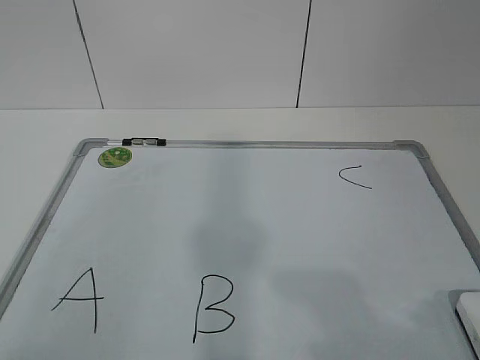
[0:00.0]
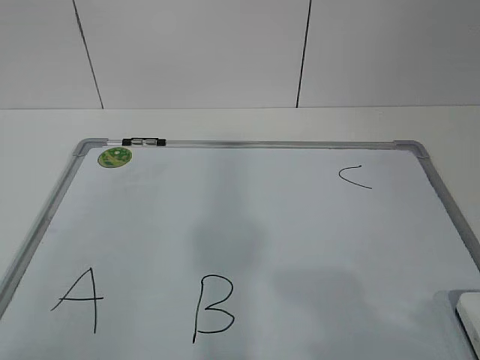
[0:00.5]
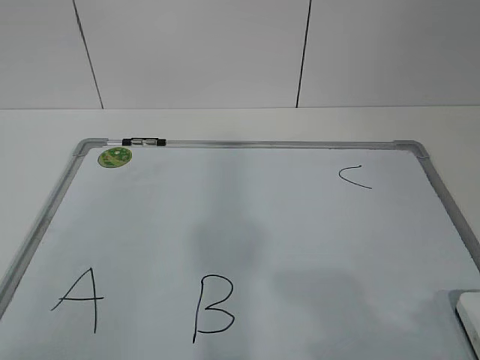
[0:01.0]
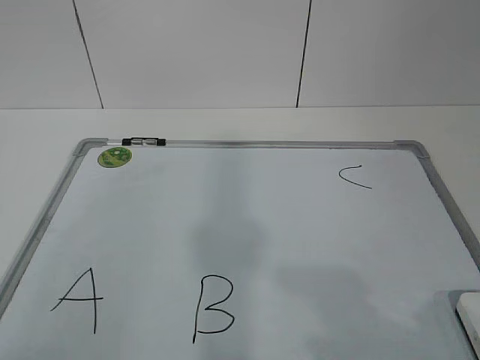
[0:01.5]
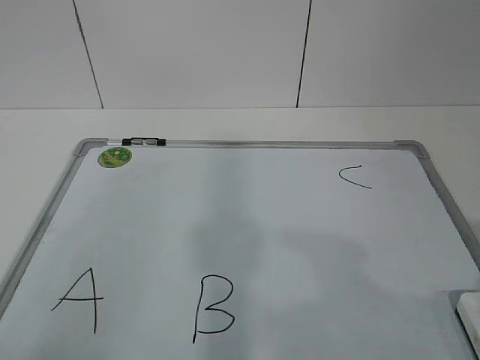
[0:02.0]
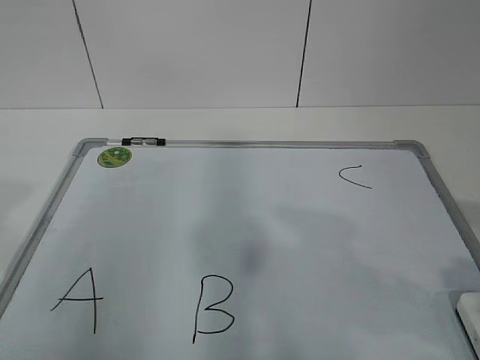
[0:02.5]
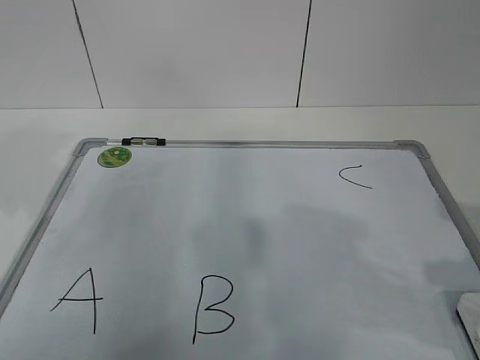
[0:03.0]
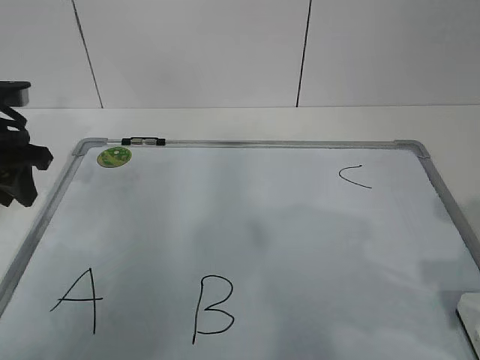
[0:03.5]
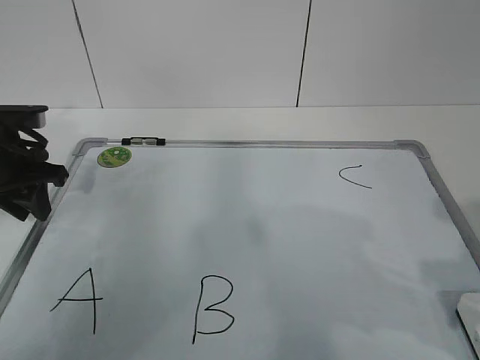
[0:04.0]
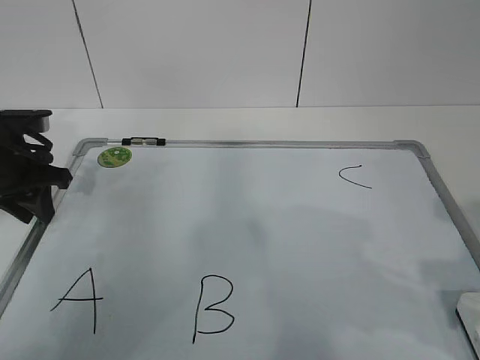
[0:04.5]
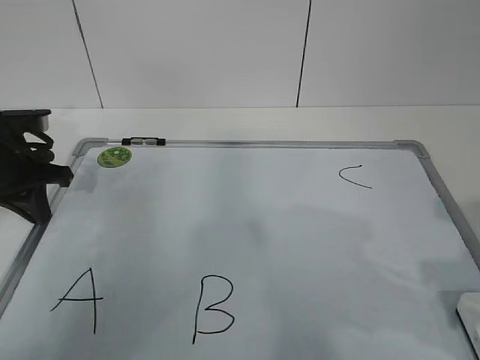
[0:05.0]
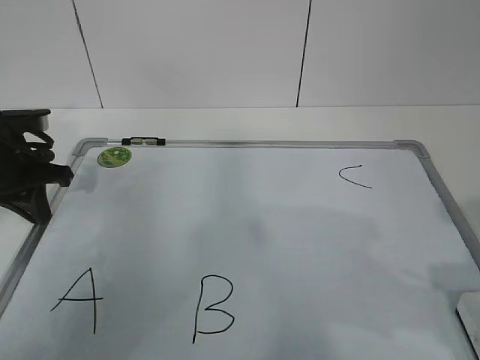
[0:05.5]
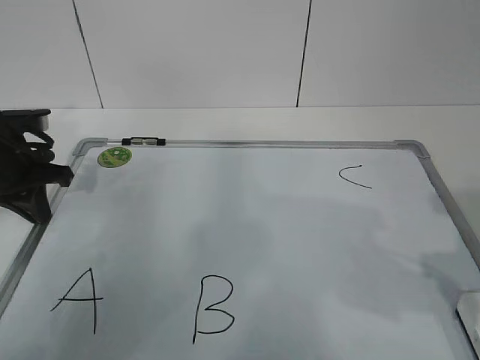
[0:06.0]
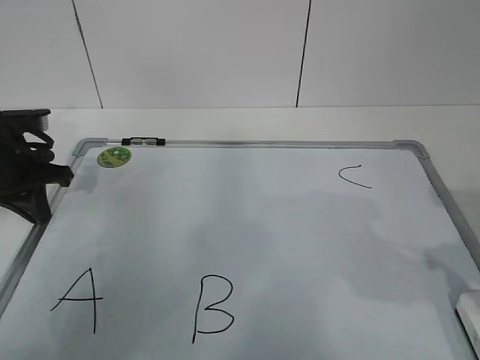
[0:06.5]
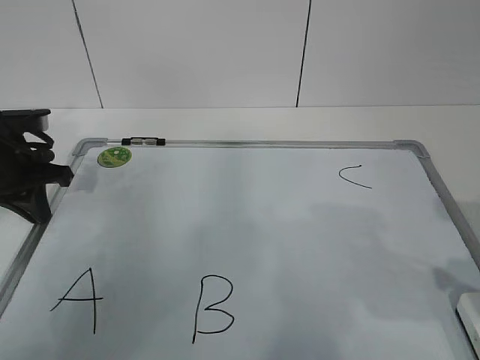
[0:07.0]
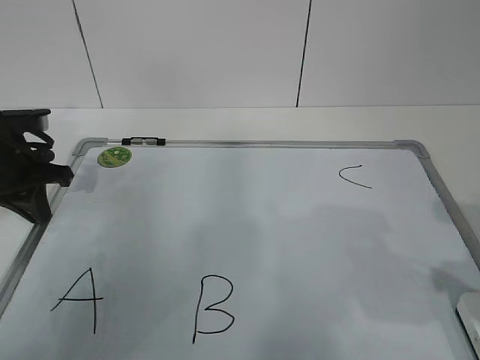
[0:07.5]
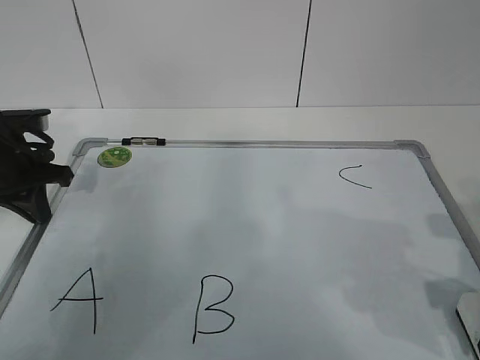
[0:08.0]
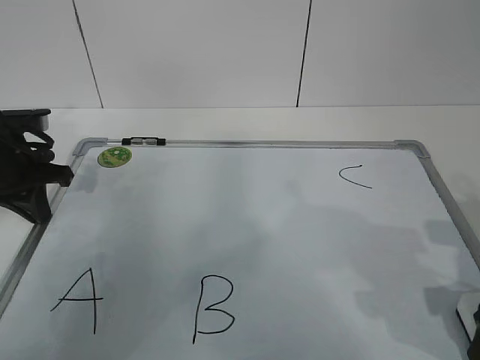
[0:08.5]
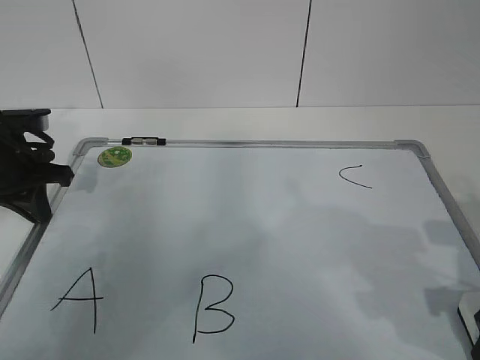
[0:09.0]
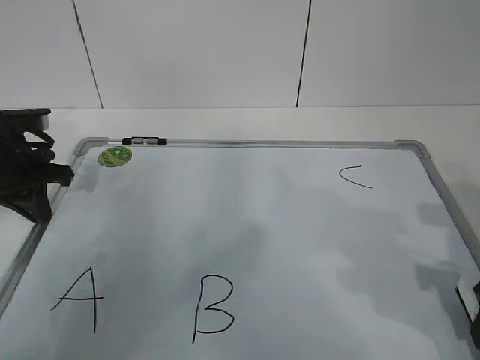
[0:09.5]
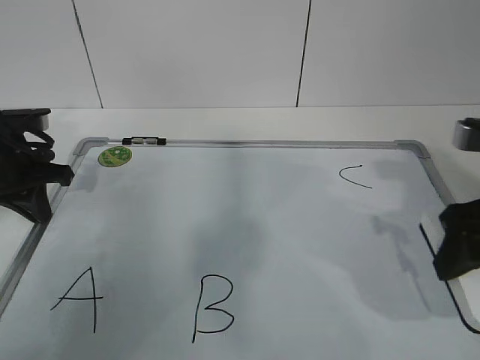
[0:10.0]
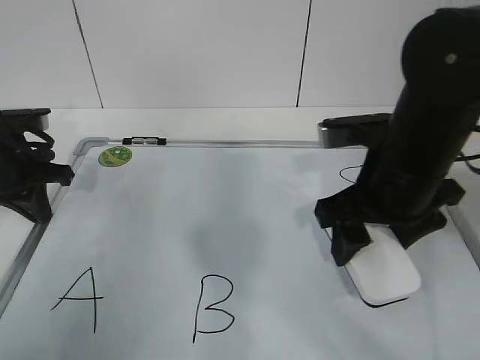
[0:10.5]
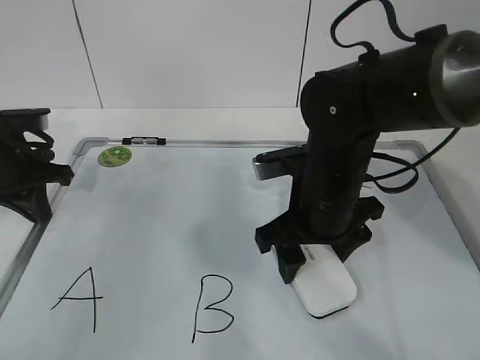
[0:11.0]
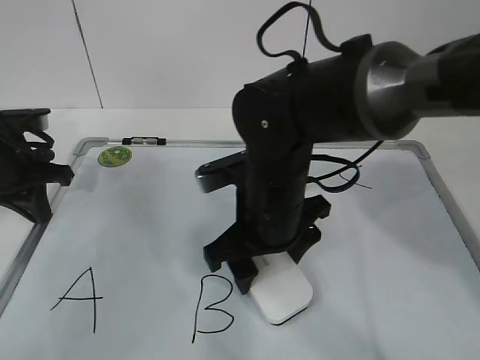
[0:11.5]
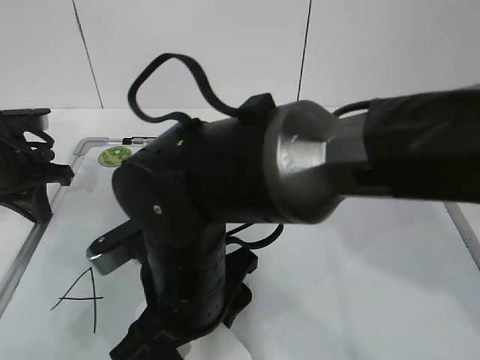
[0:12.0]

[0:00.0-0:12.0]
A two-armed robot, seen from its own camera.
Task of the whole recording: pick up the eraser on the blackboard and erase the letter "B".
Step, 0:00.0 to 0:04.0: Hold the drawing board steady with your left hand.
0:02.0 to 0:04.0: The left gripper moves forward, approximately 35 cm.
0:04.0 to 0:06.0: The left gripper closes.
0:08.0 to 0:10.0: The right gripper heads forward, covering about 5 cm, and closes.
0:10.0 to 0:12.0: The right gripper is displaced to the left by roughly 30 cm.

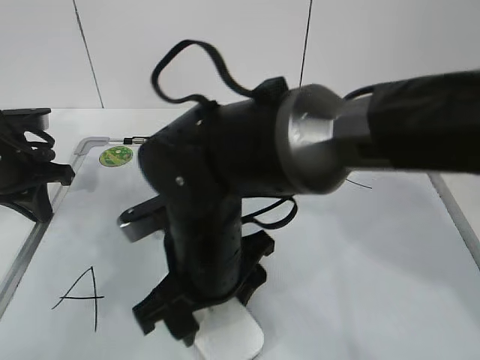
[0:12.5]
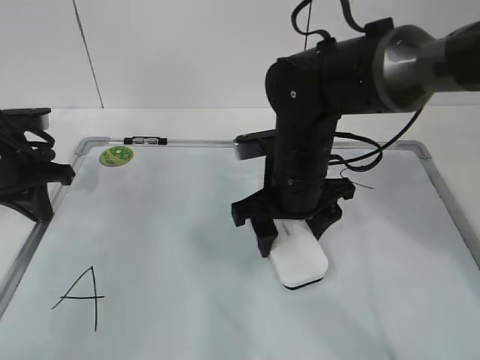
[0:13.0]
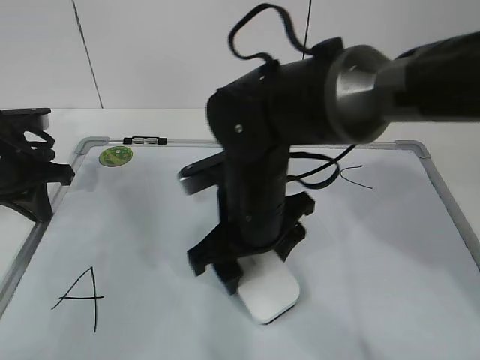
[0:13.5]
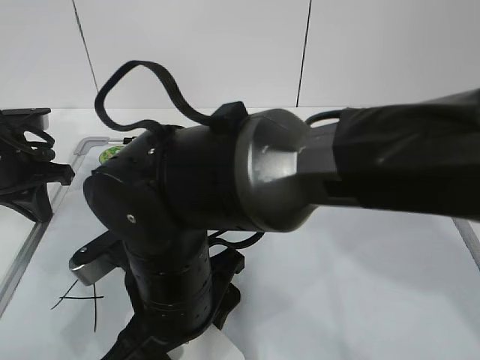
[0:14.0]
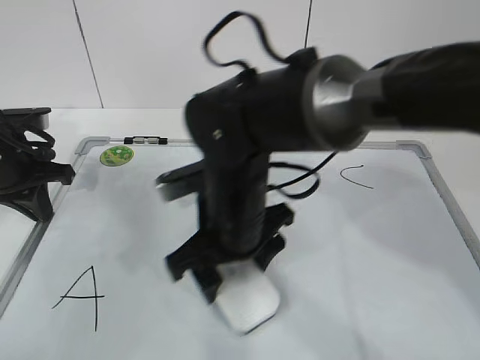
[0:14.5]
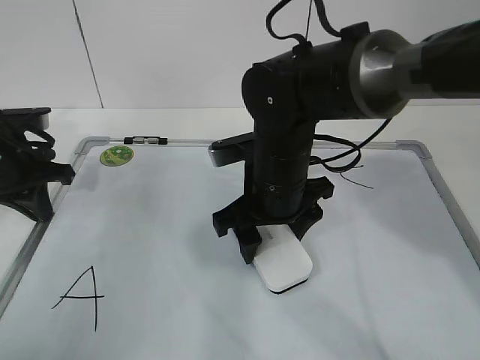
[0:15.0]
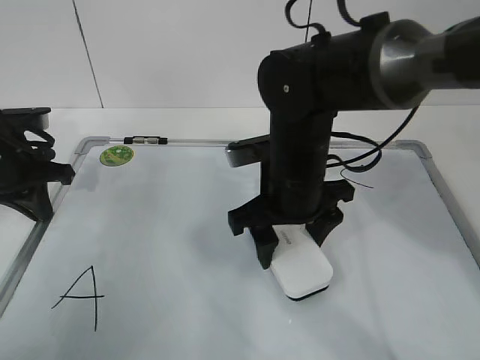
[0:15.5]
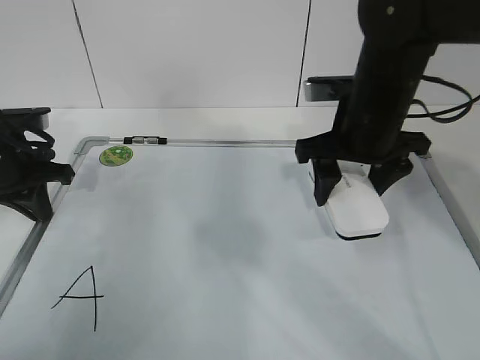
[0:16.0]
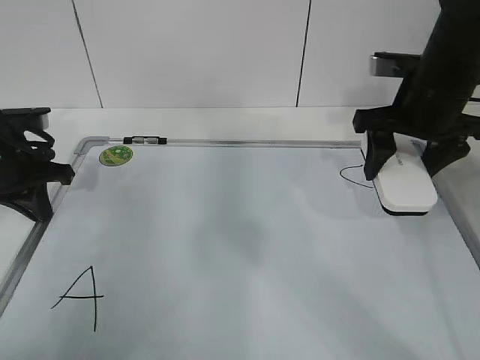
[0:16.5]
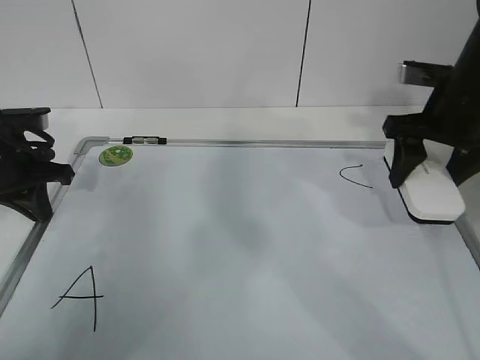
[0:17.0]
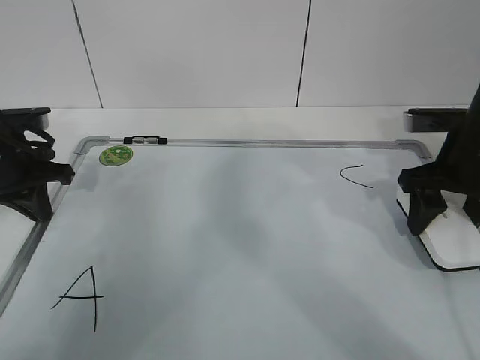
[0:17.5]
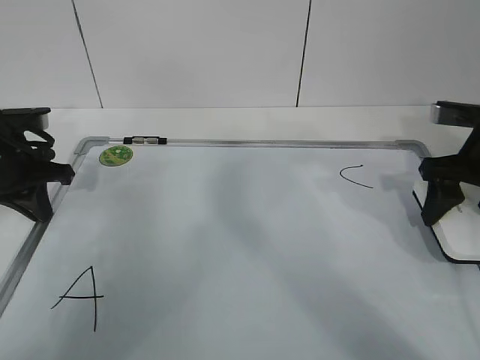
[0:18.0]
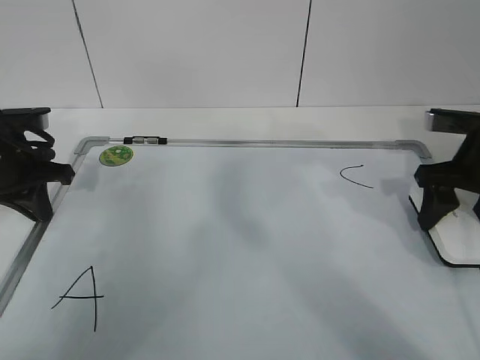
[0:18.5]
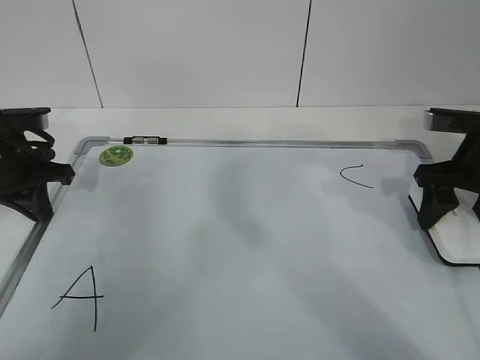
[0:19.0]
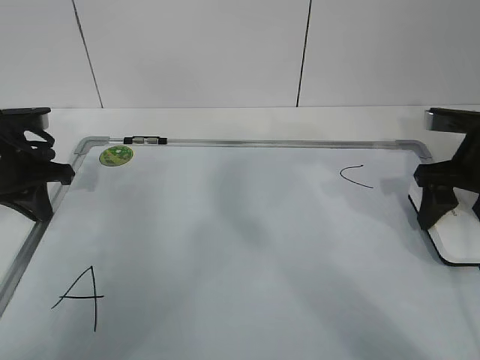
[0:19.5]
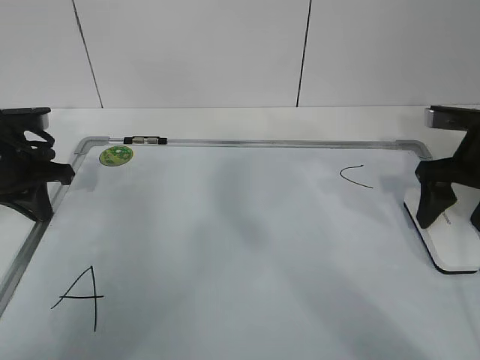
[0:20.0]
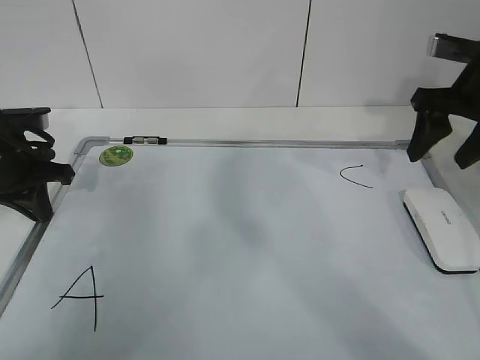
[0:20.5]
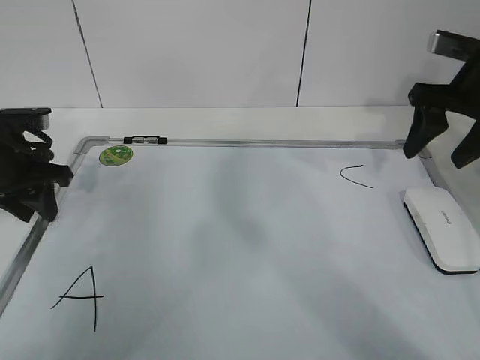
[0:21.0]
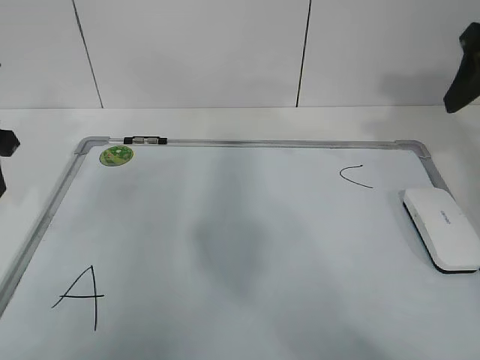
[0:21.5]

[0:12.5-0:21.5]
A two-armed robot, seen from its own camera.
Task of the whole recording: pick up the eraser on the blackboard and erase the letter "B".
Step, 0:13.0 to 0:16.0: Put down the eraser with your right hand.
0:12.5 to 0:14.5: The right gripper swings forward and backward, about 15 cm each way, with 2 reversals.
0:14.5 to 0:17.0: The right gripper shifts approximately 25 cm to the right.
0:17.0 to 0:19.5: The right gripper moves approximately 5 cm.
0:19.5 to 0:21.5: The right gripper moves upward, approximately 15 cm, and opens, then closes again, while the left gripper moves upward, some 10 cm, and opens up.

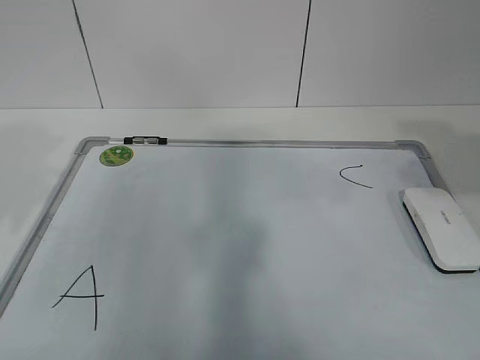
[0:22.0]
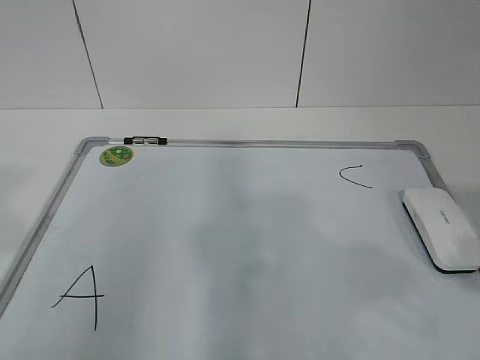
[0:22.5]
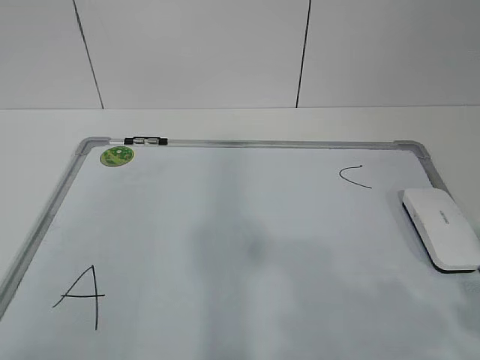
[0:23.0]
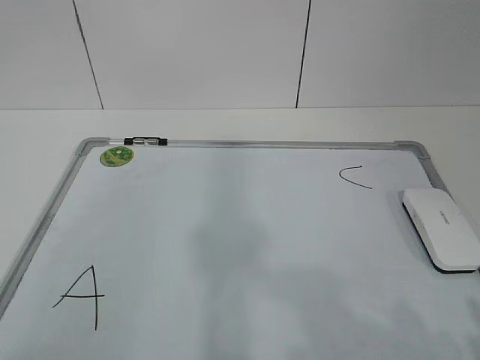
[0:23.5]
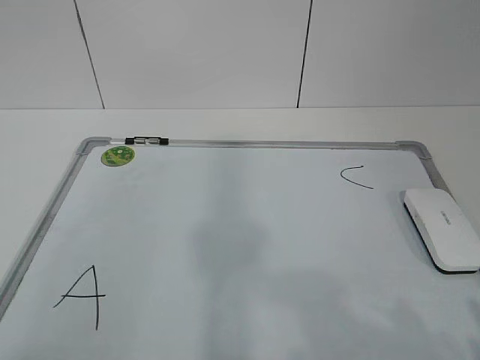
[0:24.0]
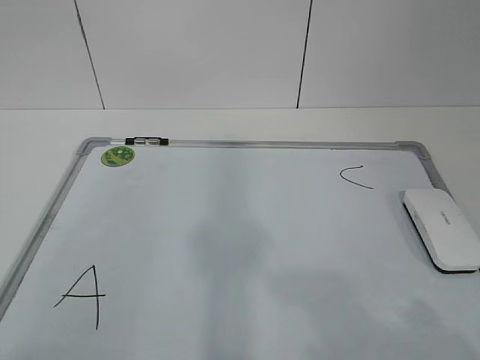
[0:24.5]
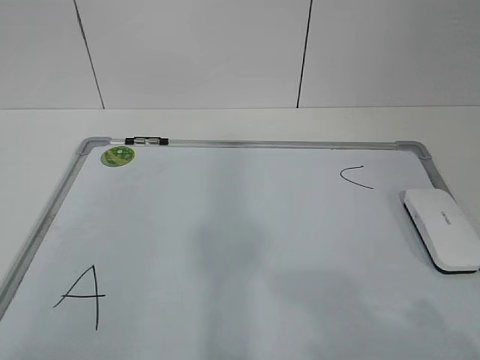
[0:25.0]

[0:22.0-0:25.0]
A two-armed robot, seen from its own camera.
Task of the whole recording: pick up the eraser on the blackboard and erase the letter "B".
0:22.0 to 0:23.5: The left gripper is displaced backward by about 25 cm. Meanwhile the right gripper shifts approximately 20 cm backward and downward.

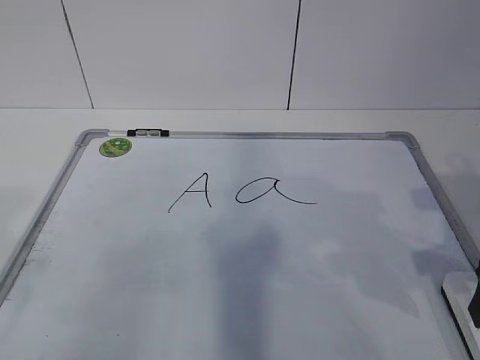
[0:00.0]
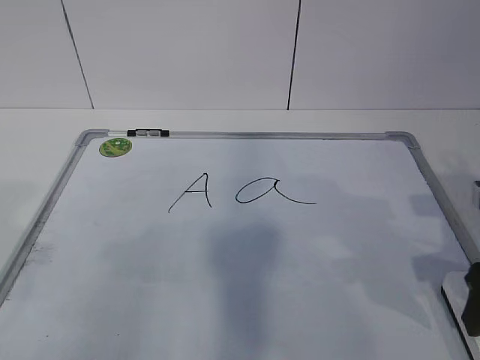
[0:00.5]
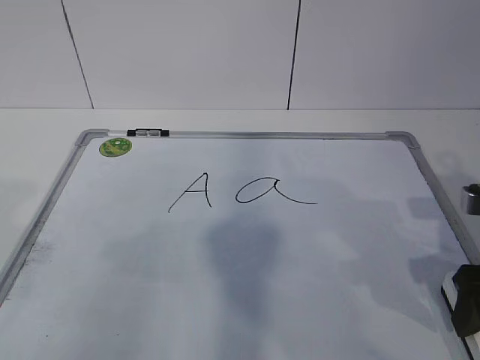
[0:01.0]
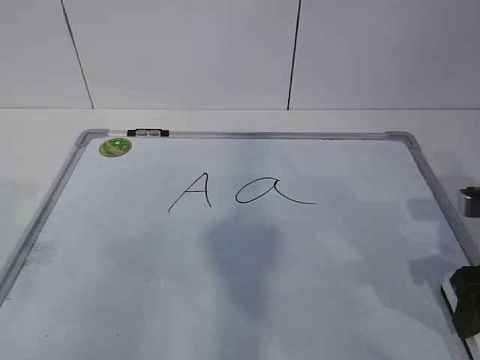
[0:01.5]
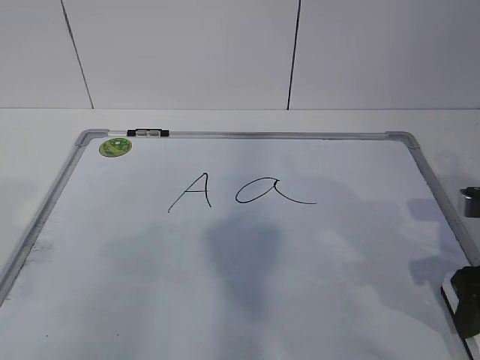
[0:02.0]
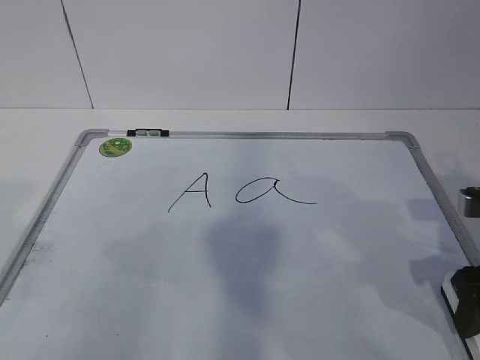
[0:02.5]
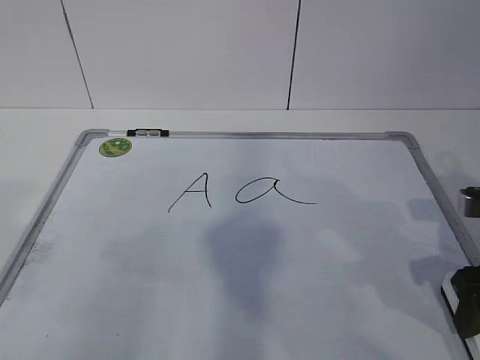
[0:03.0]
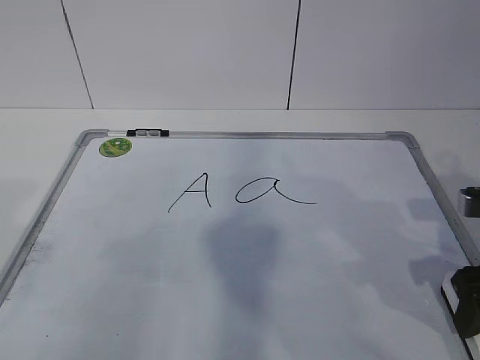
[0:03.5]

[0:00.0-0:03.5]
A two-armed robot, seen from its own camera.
Task of the whole recording: pick up the eraser on the blackboard and erase the letter "a".
0:00.0 to 0:02.0: The right gripper closes.
0:02.0 to 0:03.5: Neither gripper changes place.
